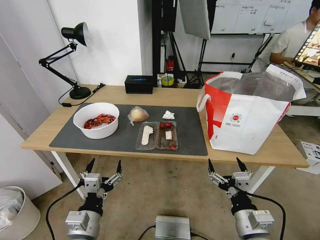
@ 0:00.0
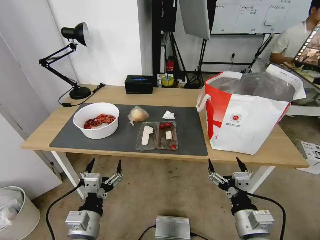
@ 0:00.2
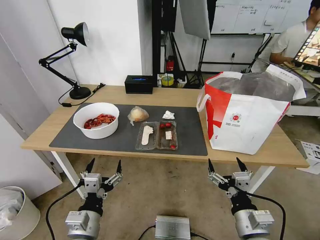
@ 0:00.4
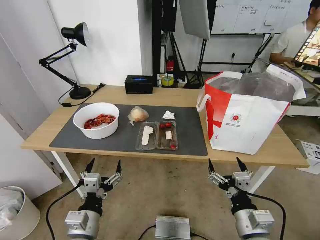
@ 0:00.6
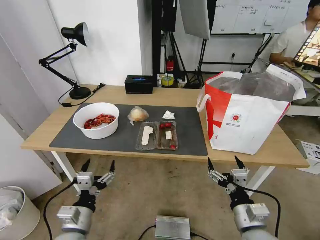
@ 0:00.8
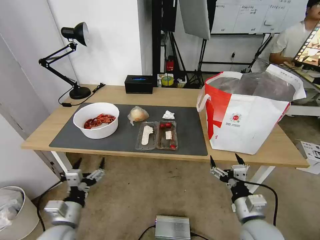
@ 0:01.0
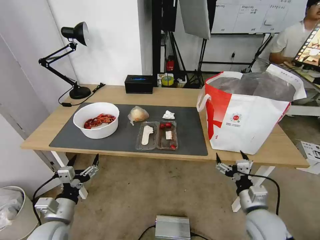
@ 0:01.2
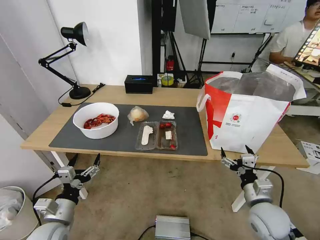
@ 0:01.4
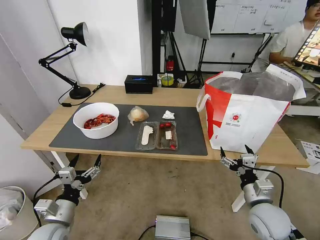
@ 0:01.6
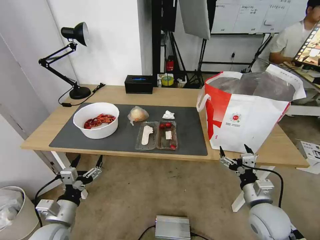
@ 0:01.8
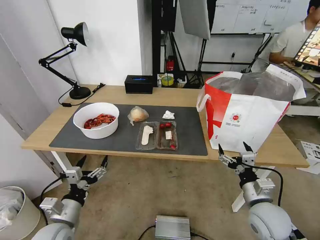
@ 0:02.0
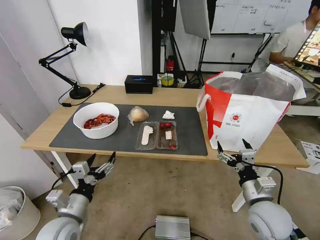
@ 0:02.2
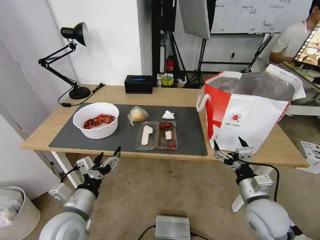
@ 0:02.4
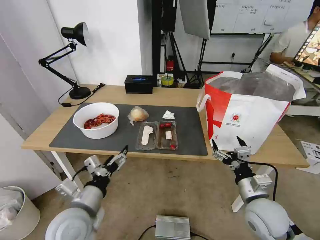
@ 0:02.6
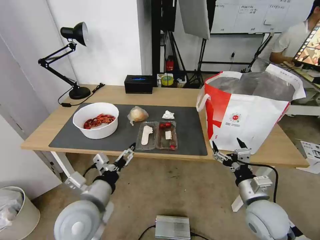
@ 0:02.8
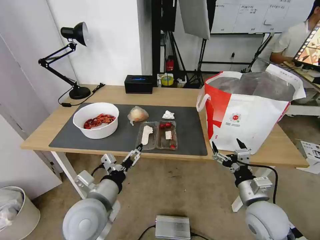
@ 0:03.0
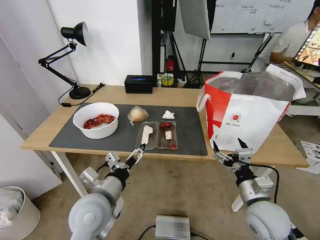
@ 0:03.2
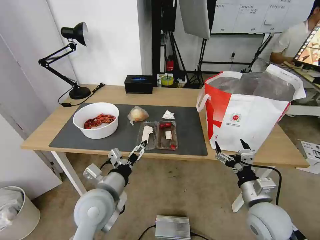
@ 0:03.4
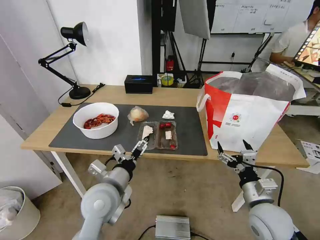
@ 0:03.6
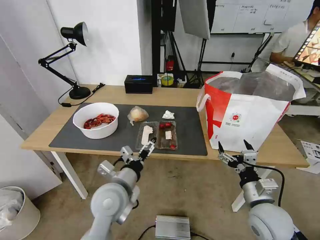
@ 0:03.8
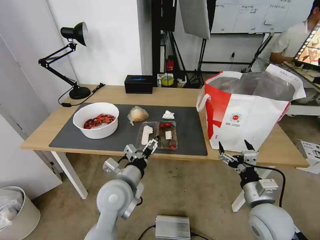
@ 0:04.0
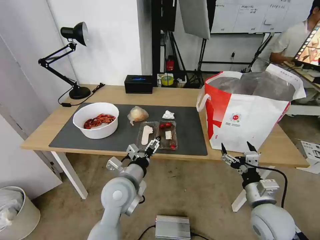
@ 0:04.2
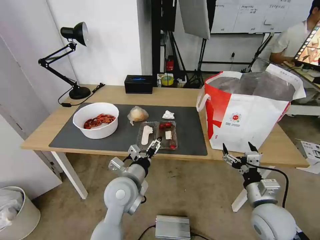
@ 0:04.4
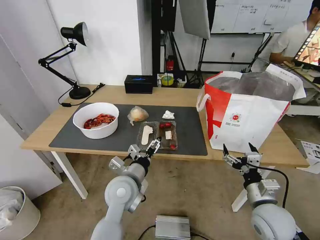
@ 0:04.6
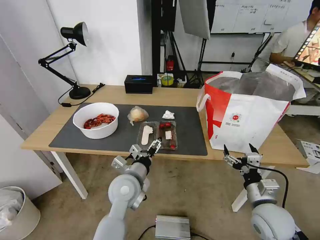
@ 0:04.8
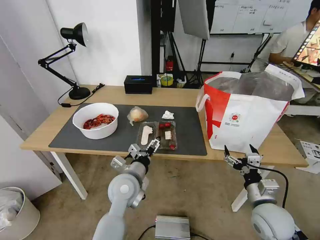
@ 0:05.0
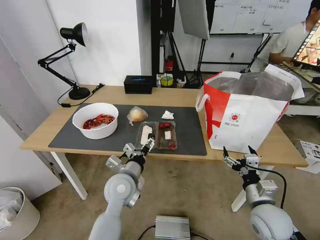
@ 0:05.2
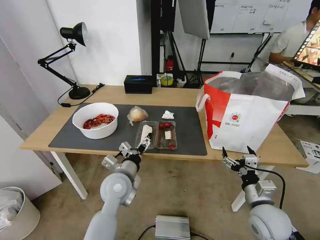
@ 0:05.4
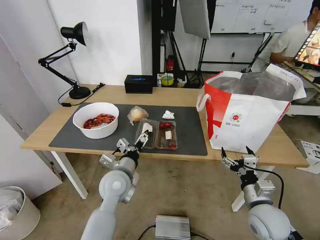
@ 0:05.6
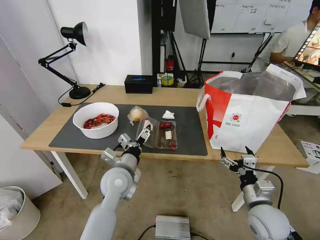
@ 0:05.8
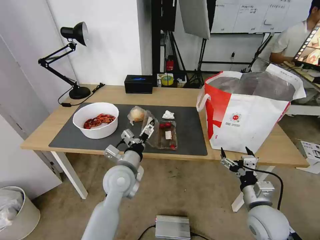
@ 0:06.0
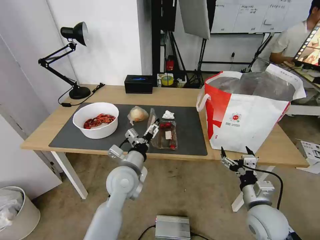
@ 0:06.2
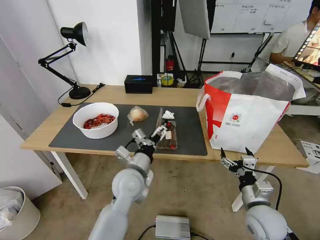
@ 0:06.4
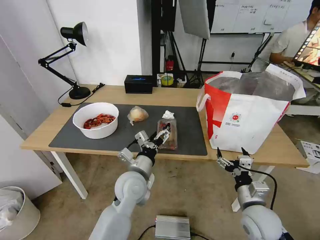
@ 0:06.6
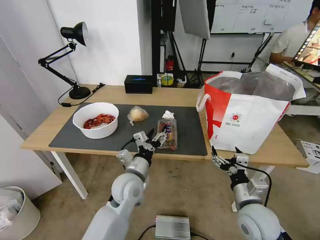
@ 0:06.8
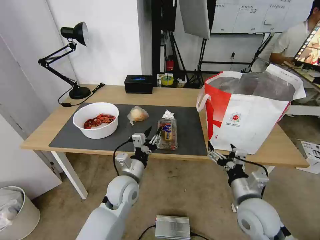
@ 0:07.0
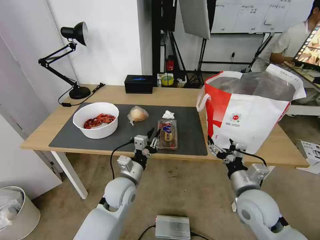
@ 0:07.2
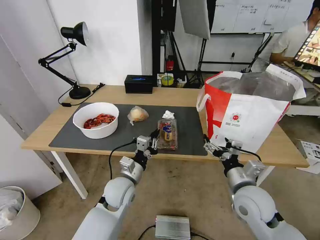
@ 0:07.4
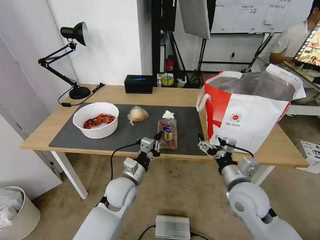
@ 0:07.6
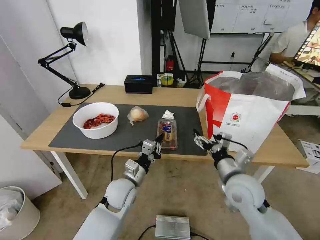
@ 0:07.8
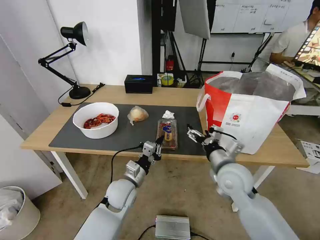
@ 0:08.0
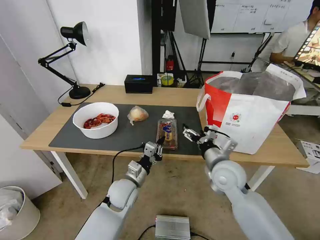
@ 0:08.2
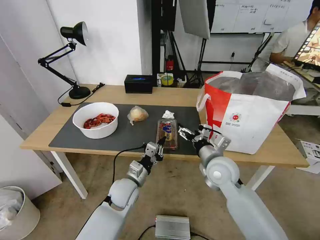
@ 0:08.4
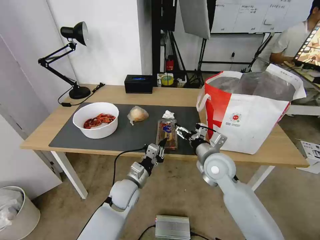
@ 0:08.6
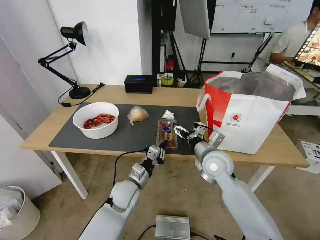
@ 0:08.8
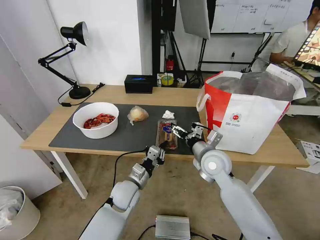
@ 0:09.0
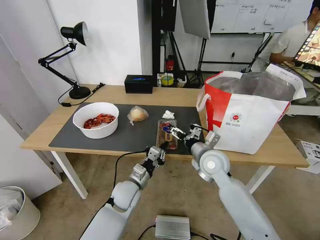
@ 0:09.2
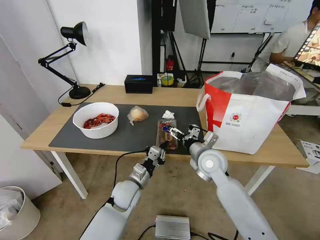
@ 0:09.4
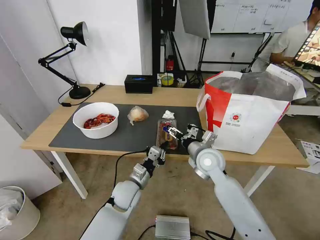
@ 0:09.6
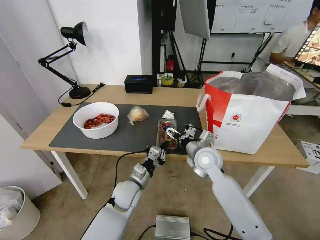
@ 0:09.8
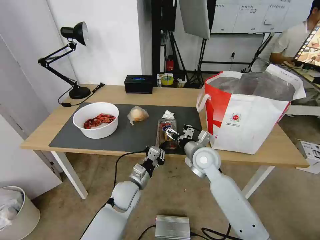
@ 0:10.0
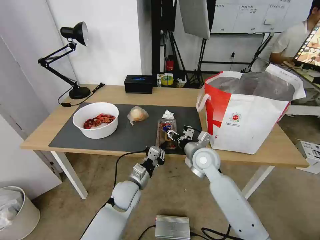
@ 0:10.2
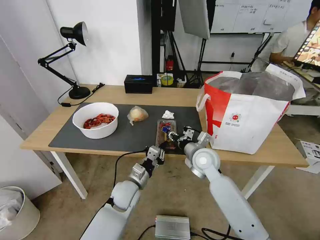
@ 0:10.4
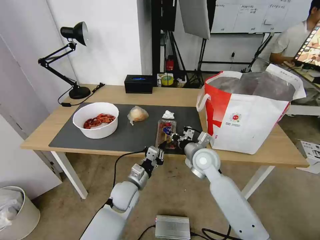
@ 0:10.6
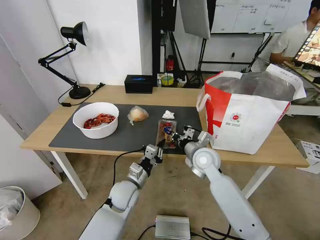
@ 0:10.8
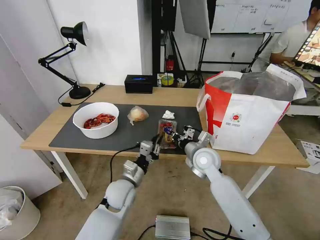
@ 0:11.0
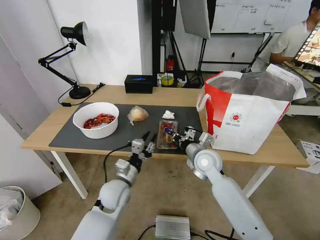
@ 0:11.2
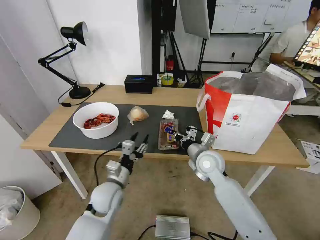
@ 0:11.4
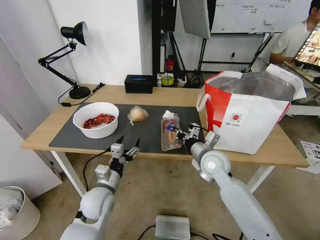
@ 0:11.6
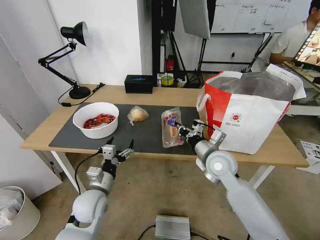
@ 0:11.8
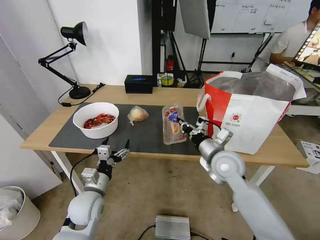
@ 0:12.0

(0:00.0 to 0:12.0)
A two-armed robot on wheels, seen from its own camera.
Task of the whole recording: Pick up the trash from the table and place it into the takeout bag.
0:01.6 - 0:03.0: The left gripper heads to the right and upward, covering approximately 15 cm.
0:03.0 - 0:04.4: The left gripper shifts approximately 10 cm forward and to the right.
0:04.4 - 0:06.0: The grippers move only a little.
0:06.0 - 0:07.6: The right gripper moves upward and to the left, about 10 cm, while the left gripper travels downward by approximately 5 cm, and closes its fingers.
0:07.6 - 0:09.0: The right gripper travels forward and to the left by some 15 cm.
0:09.0 - 0:10.4: The right gripper closes.
0:10.4 - 0:12.0: The left gripper travels to the left and backward by approximately 10 cm, and opens, while the right gripper shifts by approximately 10 cm, and closes.

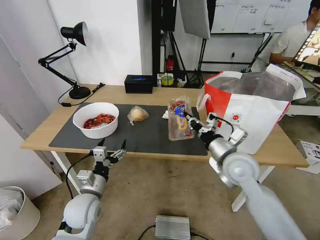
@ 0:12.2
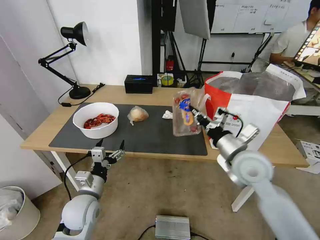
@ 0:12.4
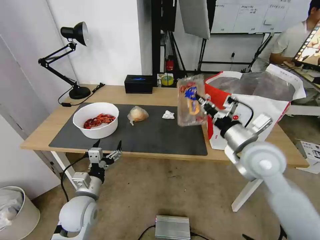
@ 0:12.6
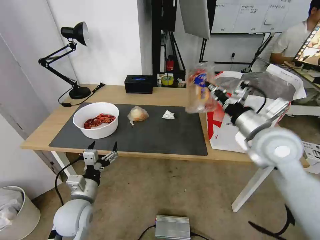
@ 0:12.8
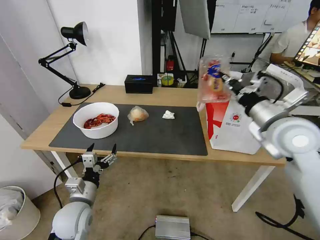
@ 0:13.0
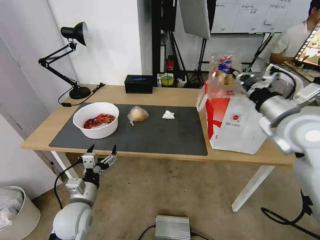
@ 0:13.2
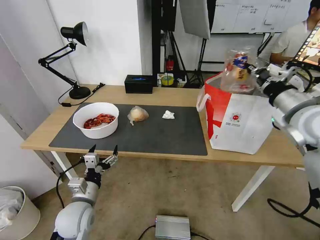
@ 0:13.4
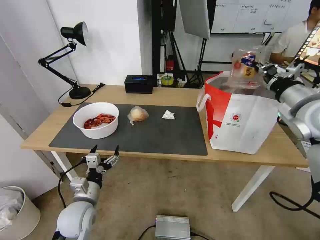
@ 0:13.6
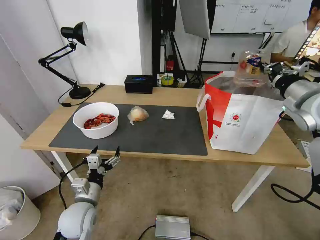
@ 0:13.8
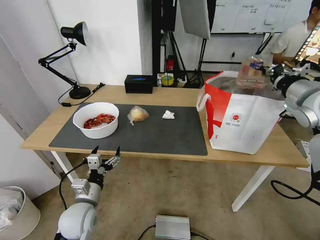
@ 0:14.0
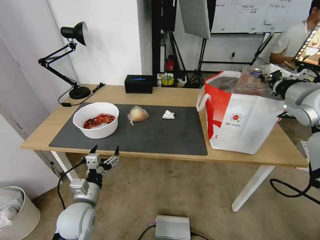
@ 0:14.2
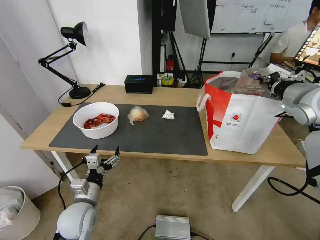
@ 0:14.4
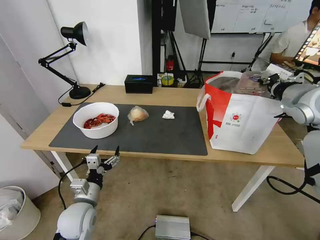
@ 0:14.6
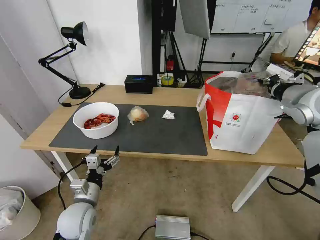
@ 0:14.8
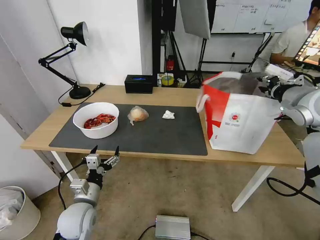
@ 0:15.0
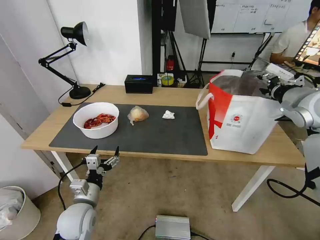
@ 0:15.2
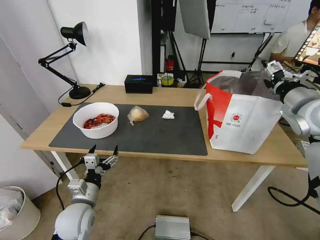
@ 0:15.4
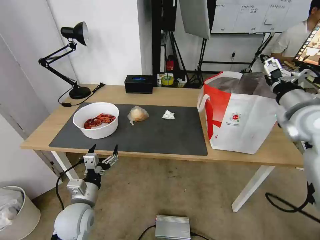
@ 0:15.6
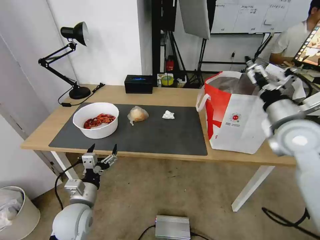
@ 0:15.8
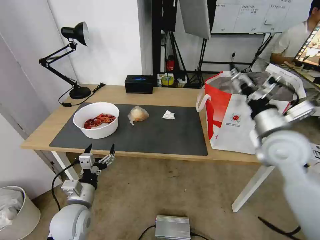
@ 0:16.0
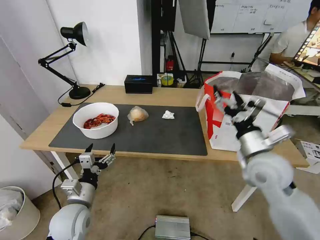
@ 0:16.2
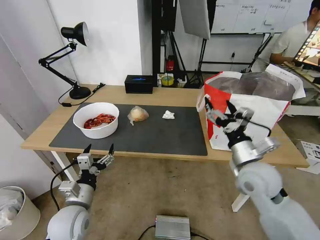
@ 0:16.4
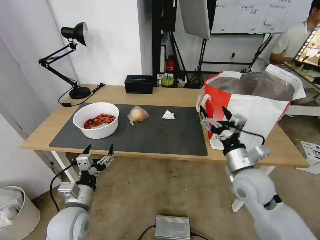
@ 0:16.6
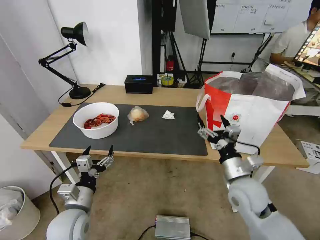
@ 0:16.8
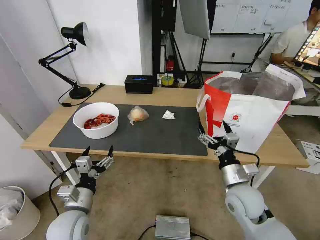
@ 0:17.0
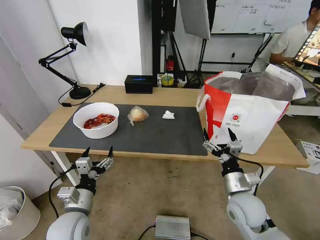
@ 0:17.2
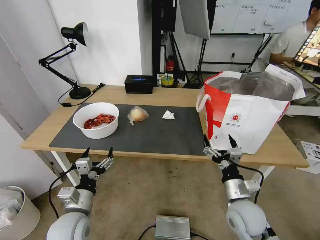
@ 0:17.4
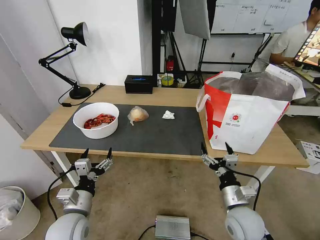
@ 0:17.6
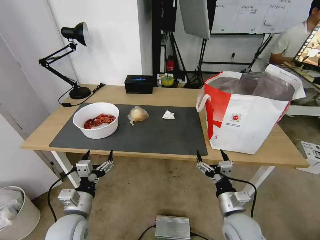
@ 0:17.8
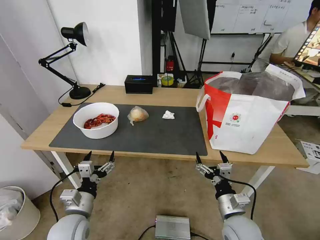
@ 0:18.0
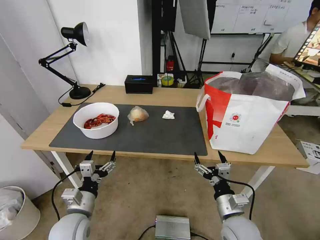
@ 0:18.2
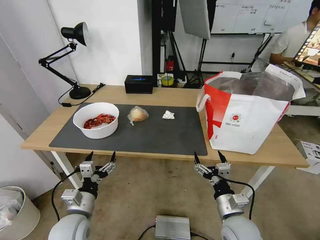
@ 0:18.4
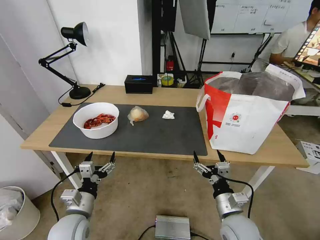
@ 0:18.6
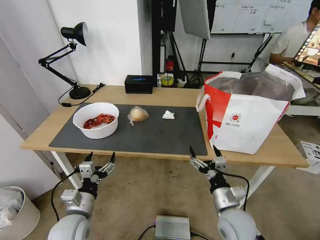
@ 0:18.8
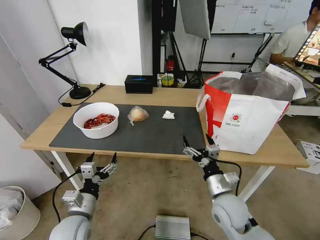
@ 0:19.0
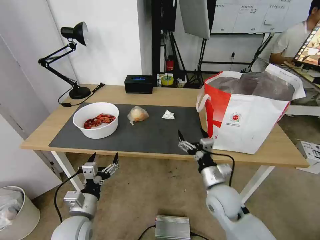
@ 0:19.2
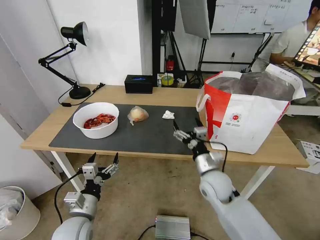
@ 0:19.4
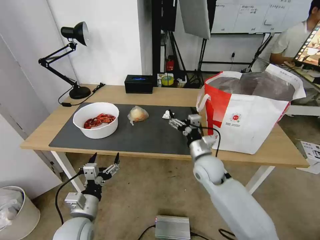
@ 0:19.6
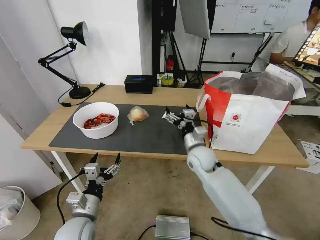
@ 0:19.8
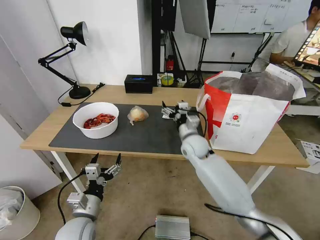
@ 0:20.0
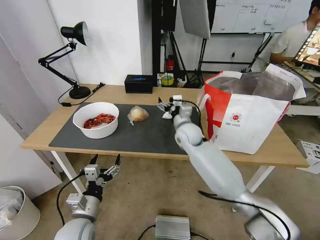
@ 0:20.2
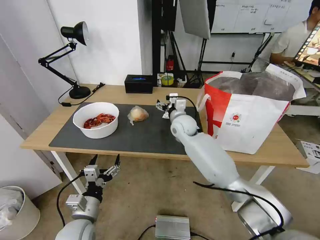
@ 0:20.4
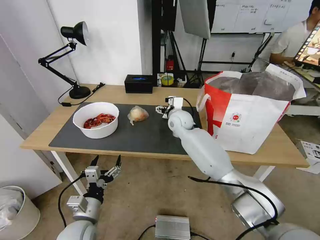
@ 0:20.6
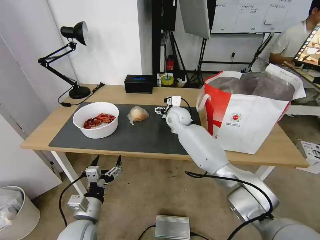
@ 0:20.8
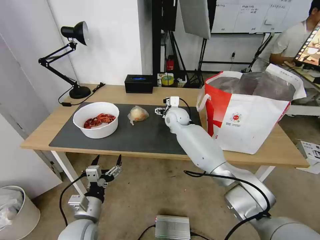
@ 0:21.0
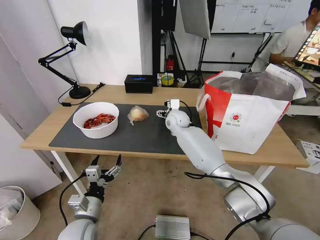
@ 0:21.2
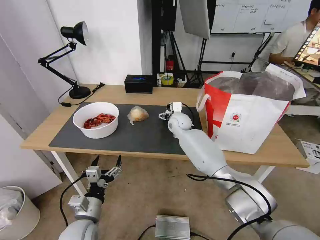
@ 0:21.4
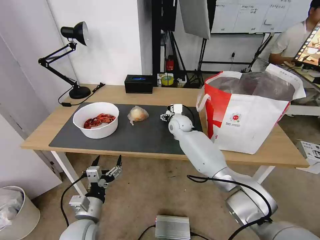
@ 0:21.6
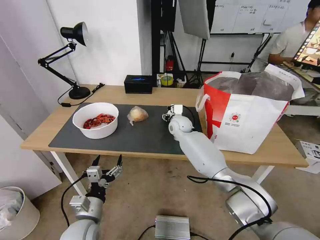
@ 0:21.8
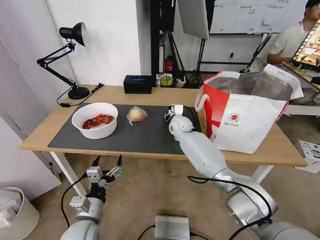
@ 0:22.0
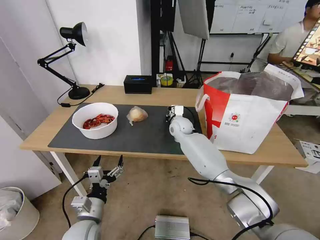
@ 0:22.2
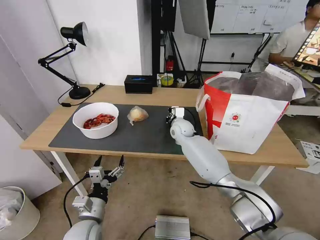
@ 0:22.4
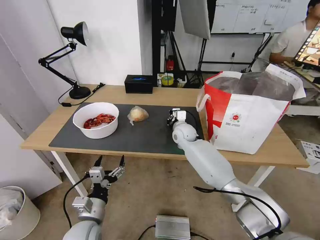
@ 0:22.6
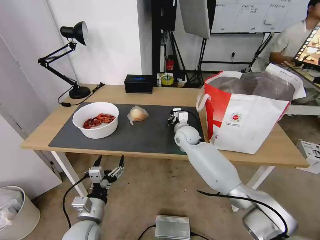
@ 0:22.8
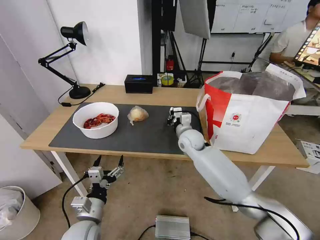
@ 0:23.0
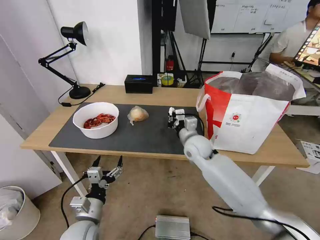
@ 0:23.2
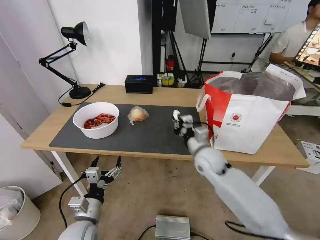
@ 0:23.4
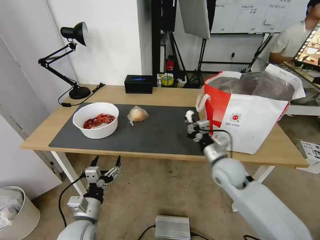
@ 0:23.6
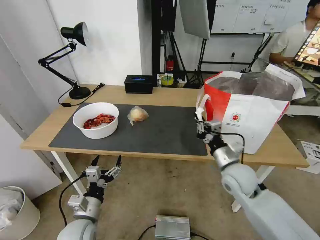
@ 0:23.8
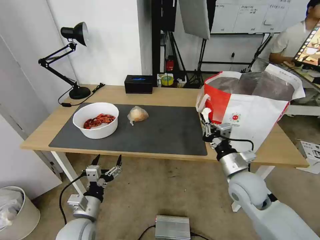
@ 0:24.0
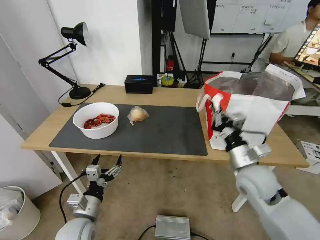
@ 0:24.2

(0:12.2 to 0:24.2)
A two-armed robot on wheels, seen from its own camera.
Task of the whole recording: Pick up the trash from the table and place it into the takeout bag.
0:12.2 - 0:13.8: The right gripper moves to the right and upward, some 25 cm.
0:13.8 - 0:15.2: The right gripper opens its fingers.
0:15.2 - 0:16.6: The right gripper moves downward, to the left and backward, about 25 cm, and opens up.
0:16.6 - 0:18.2: The right gripper travels downward and backward by some 15 cm.
0:18.2 - 0:19.8: The right gripper is displaced forward by approximately 20 cm.
0:19.8 - 0:21.2: The right gripper goes roughly 20 cm forward and to the left.
0:21.2 - 0:22.6: The right gripper changes place by some 5 cm, and closes up.
0:22.6 - 0:24.2: The right gripper goes about 30 cm backward and to the right.
